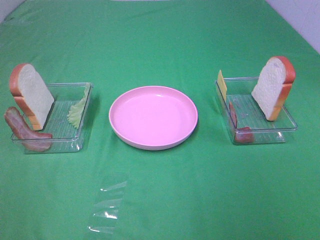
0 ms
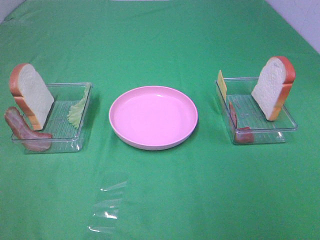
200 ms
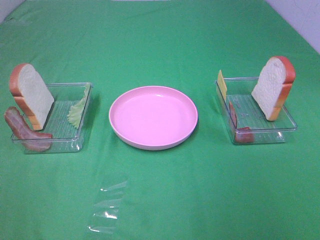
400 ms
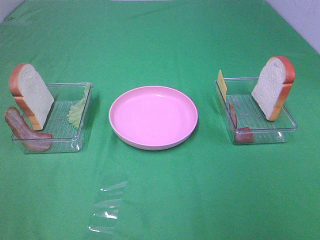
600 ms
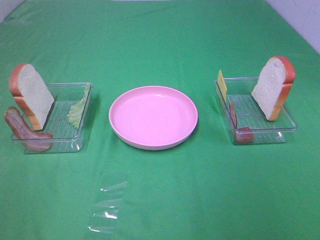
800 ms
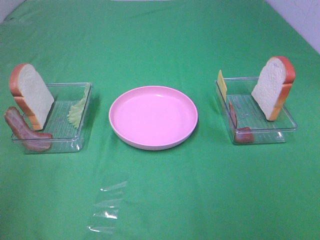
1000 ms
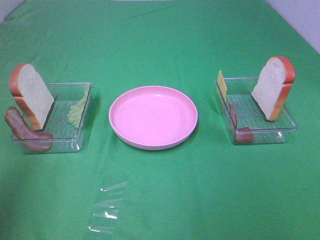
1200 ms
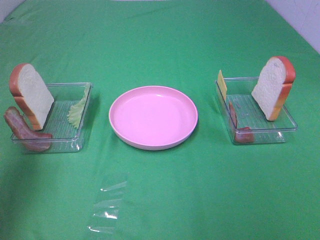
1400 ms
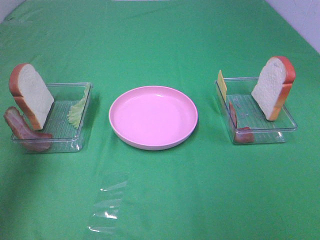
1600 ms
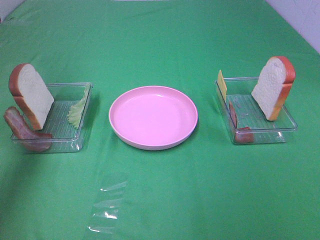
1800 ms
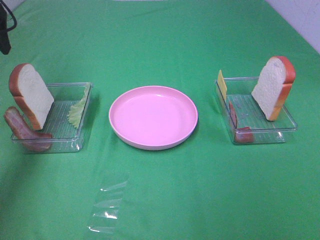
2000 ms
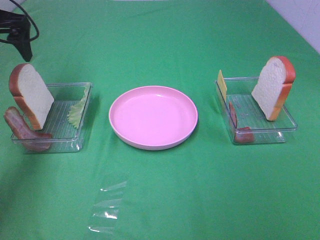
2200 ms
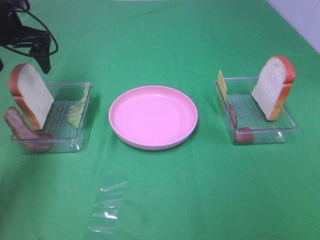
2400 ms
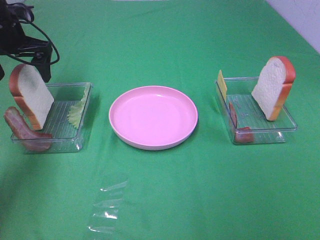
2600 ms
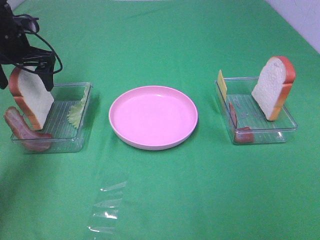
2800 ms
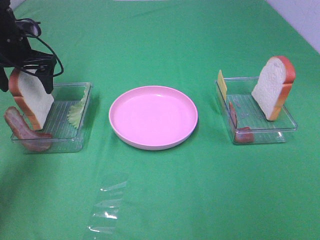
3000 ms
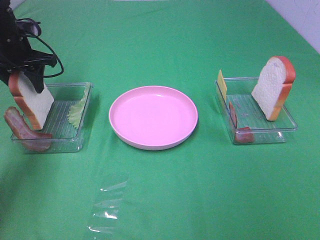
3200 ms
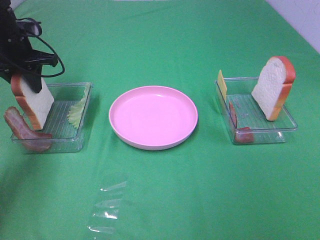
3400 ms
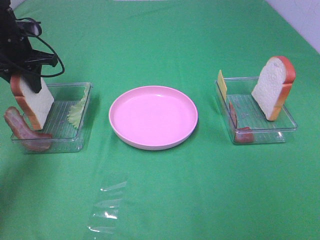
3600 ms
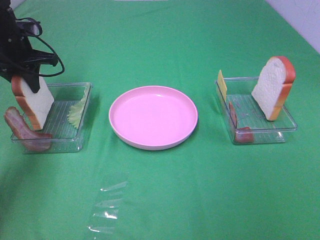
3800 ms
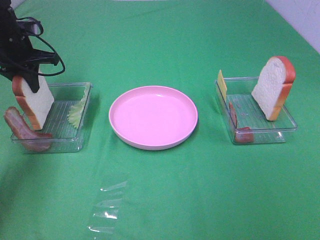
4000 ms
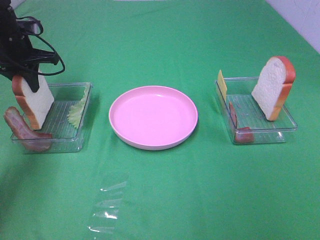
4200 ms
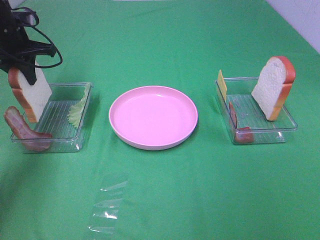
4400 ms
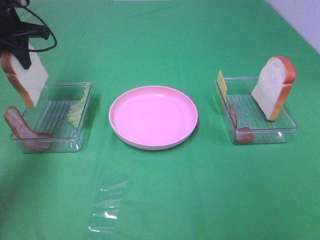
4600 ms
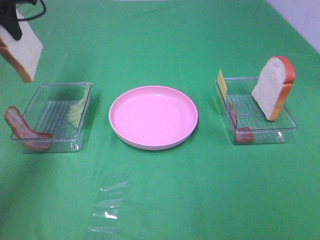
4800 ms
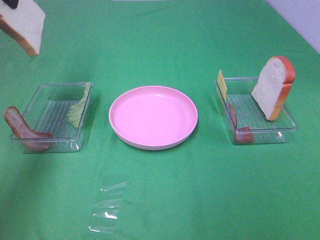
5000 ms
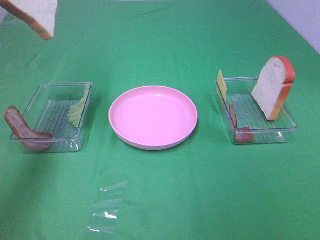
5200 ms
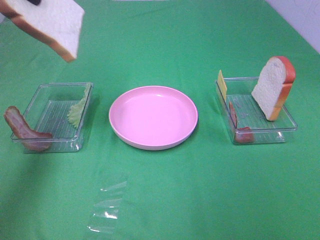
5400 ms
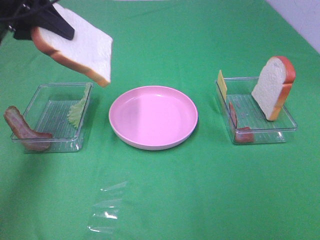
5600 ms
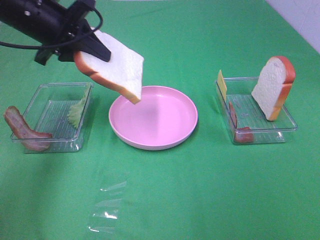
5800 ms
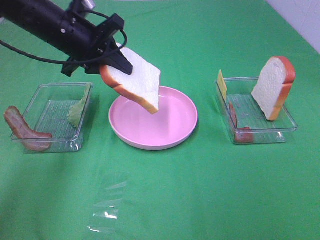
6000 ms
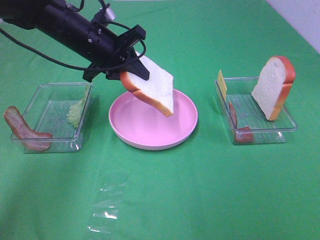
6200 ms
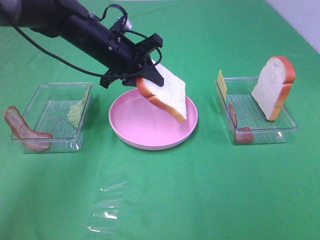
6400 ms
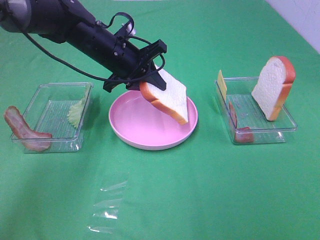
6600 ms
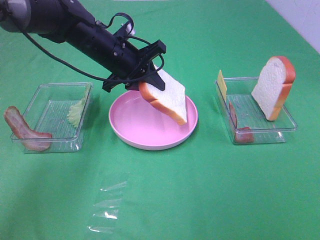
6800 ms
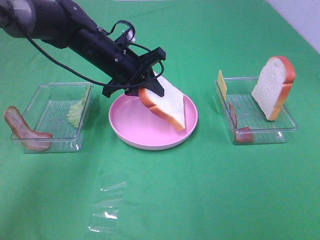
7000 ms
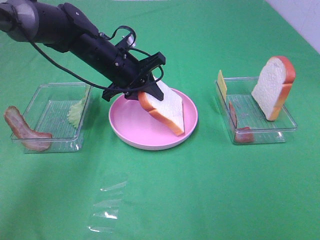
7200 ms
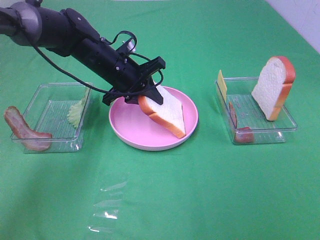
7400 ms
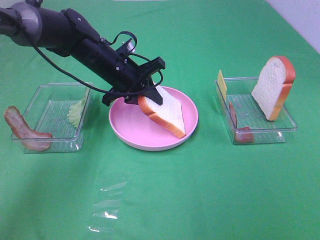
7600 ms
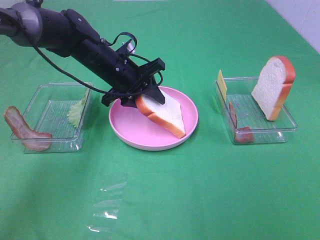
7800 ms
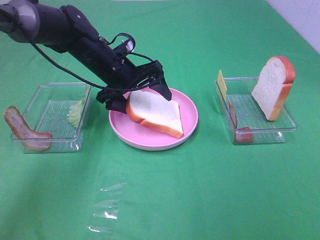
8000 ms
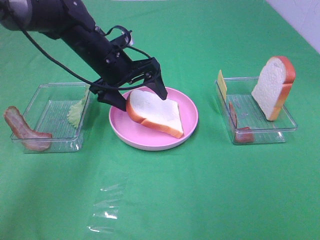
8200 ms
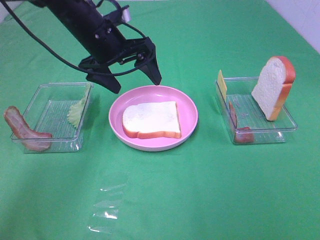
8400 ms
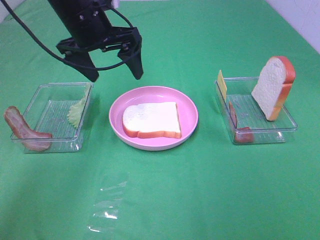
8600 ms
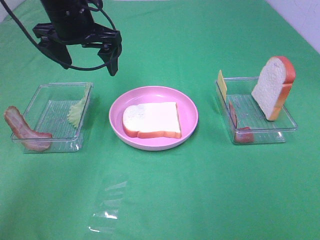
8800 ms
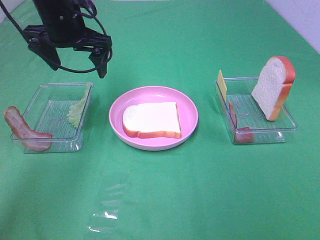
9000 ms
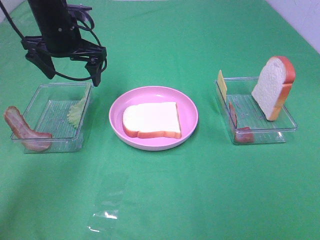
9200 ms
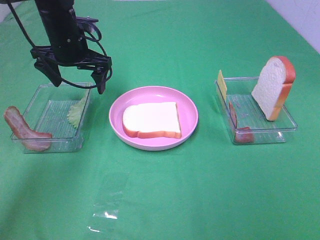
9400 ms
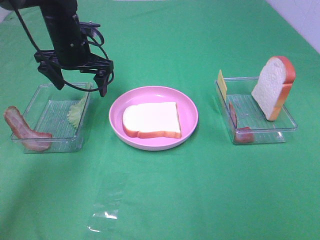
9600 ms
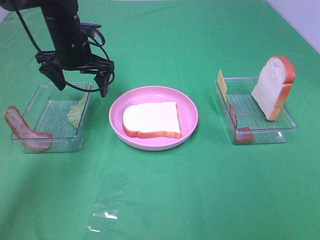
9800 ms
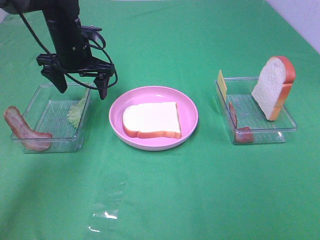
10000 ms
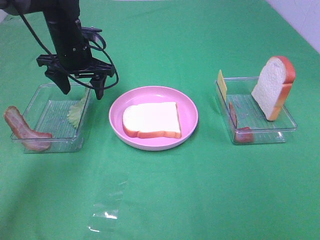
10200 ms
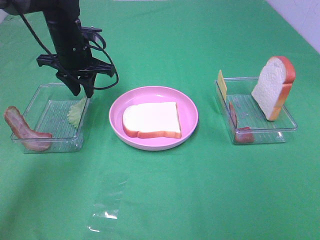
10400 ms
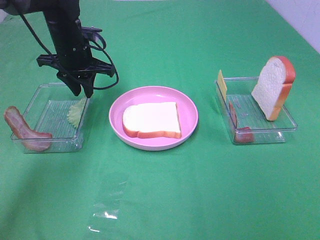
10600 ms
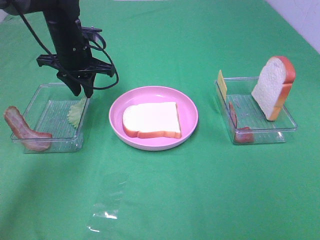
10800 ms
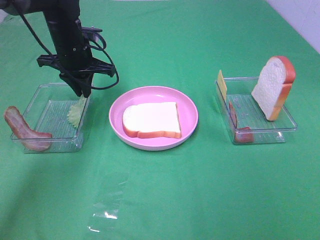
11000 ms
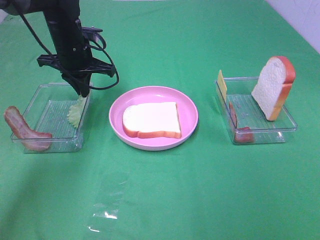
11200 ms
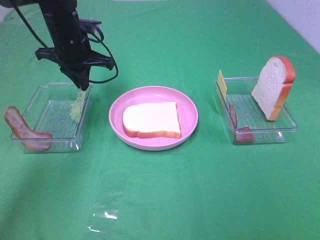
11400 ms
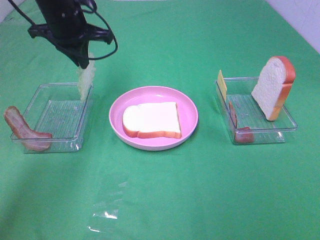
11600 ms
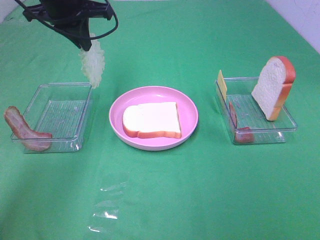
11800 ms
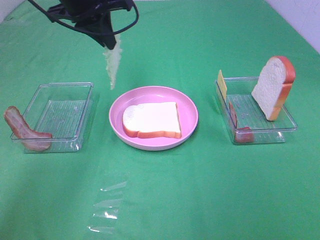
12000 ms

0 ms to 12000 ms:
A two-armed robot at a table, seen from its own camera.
Task of the whole recording: Make sandwiches.
Step, 0 ms to 3800 ms: Left hand:grab the bread slice.
Step, 4000 ms to 8400 ms: Left hand:place the bread slice on the plate.
Step, 8600 ms to 11200 ms: Left hand:grab the lettuce slice.
0 ms to 1600 ms: The left gripper travels forward by some 30 cm.
1600 ms to 3000 ms: The left gripper is displaced forward and downward by approximately 25 cm.
3000 ms to 4400 ms: The left gripper closes its fingers.
4400 ms to 6000 ms: The left gripper travels to the right and backward by some 15 cm, and reaches roughly 20 cm upward, then returns.
6000 ms to 7600 ms: The left gripper moves downward and to the right, roughly 10 cm.
7600 ms to 9000 ms: The left gripper heads upward and to the left, covering some 15 cm, and opens its fingers.
9000 ms to 10400 ms: The left gripper goes approximately 5 cm downward, and closes up.
10400 ms to 12000 ms: The left gripper moves upward, approximately 10 cm.

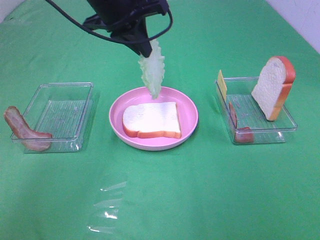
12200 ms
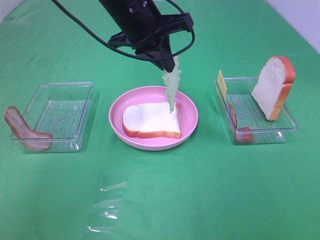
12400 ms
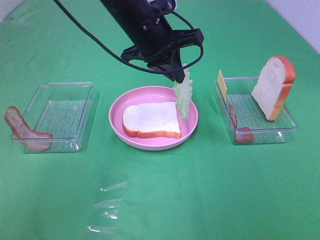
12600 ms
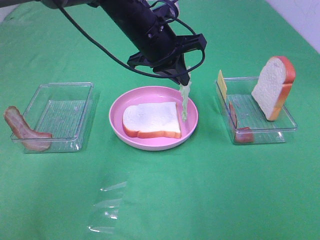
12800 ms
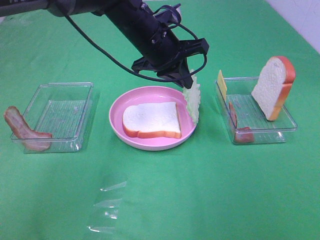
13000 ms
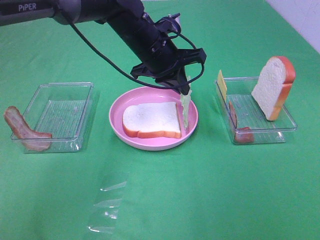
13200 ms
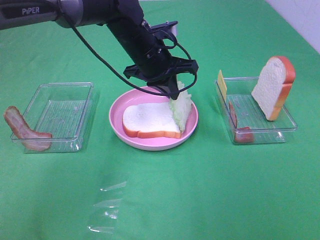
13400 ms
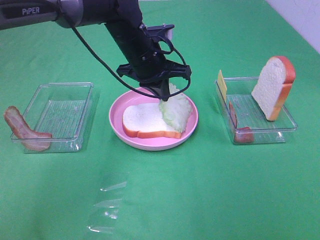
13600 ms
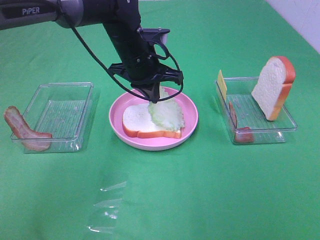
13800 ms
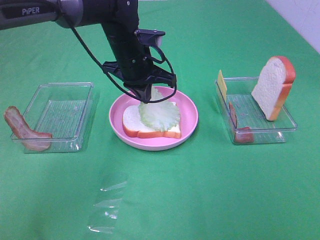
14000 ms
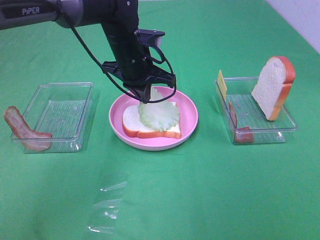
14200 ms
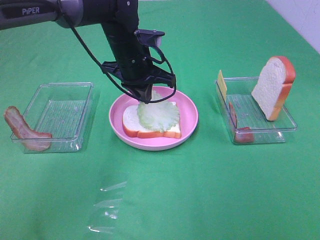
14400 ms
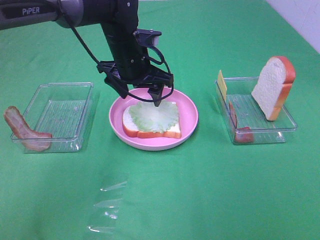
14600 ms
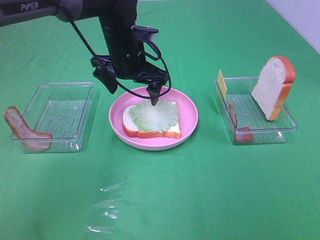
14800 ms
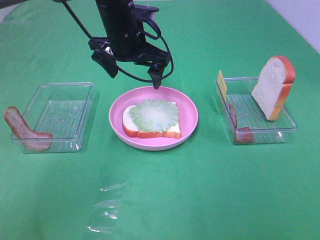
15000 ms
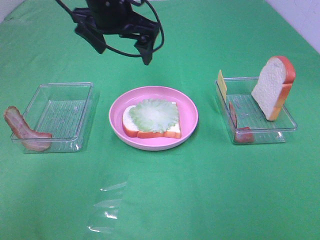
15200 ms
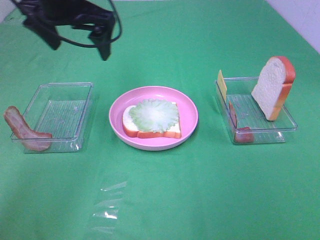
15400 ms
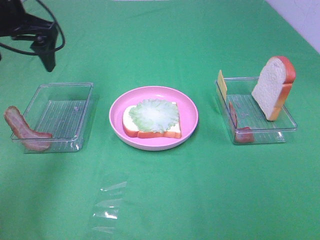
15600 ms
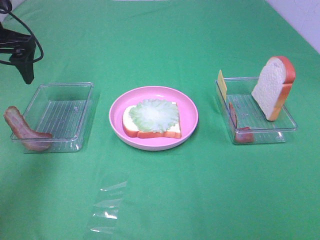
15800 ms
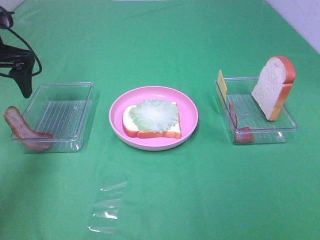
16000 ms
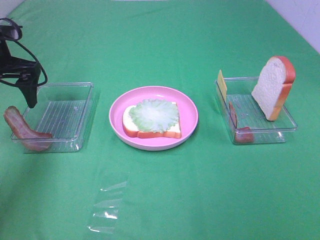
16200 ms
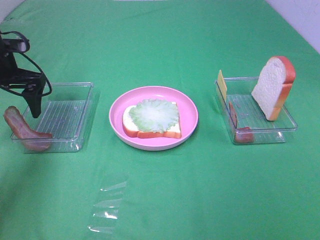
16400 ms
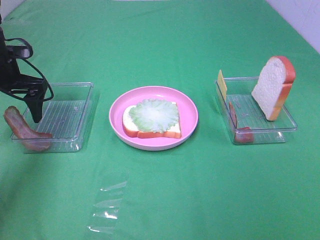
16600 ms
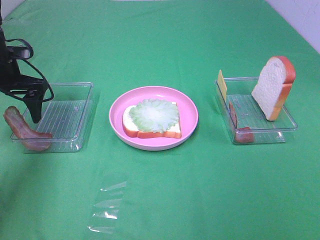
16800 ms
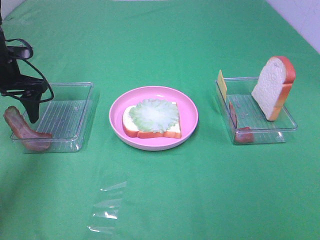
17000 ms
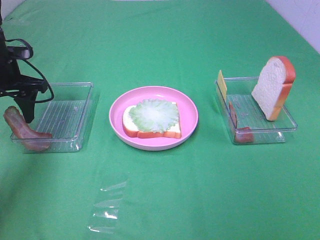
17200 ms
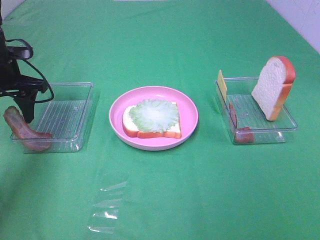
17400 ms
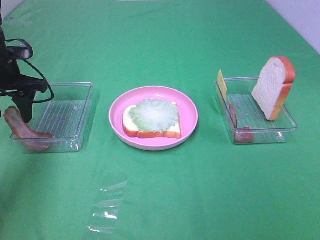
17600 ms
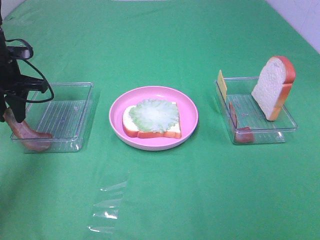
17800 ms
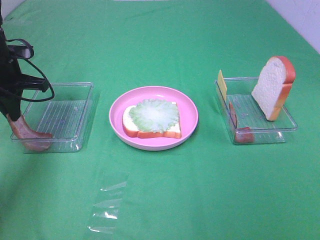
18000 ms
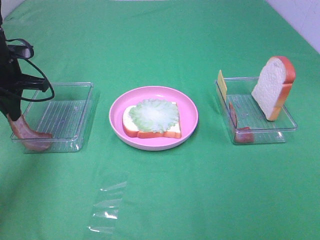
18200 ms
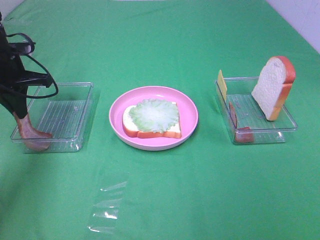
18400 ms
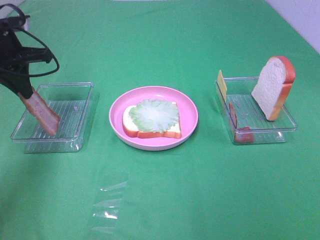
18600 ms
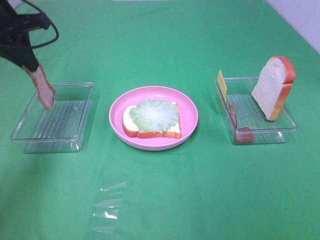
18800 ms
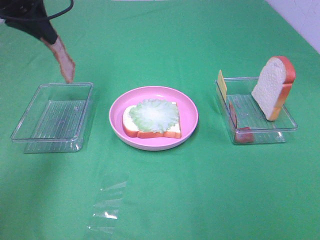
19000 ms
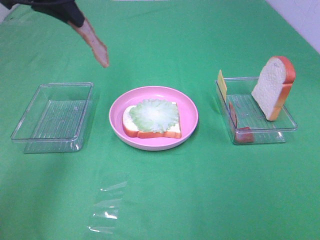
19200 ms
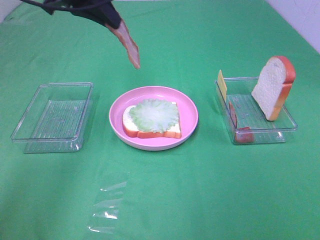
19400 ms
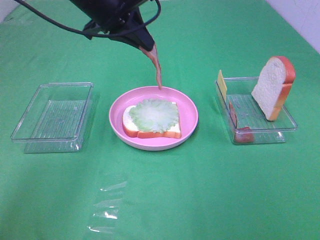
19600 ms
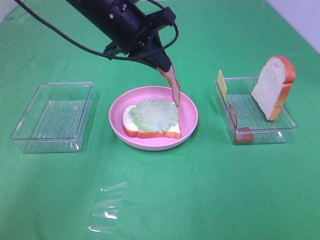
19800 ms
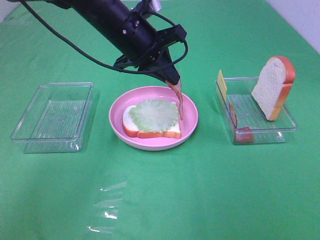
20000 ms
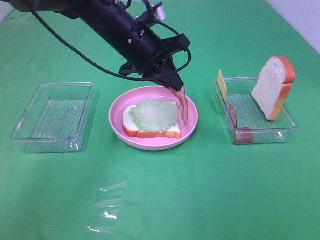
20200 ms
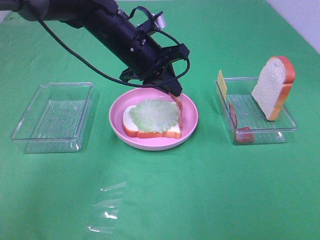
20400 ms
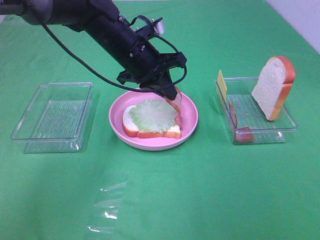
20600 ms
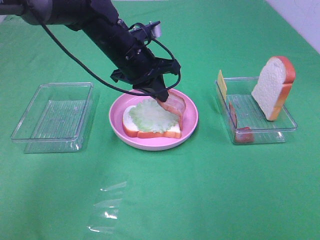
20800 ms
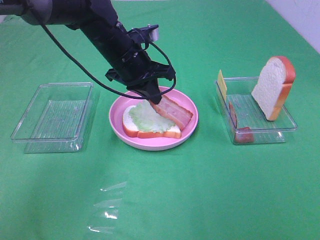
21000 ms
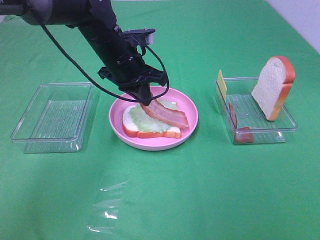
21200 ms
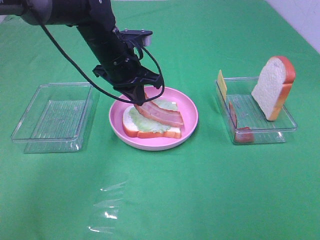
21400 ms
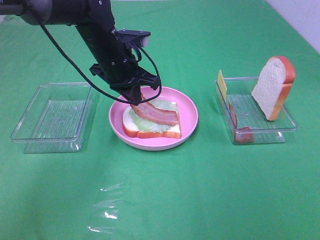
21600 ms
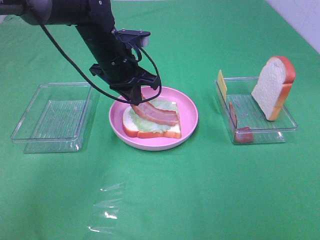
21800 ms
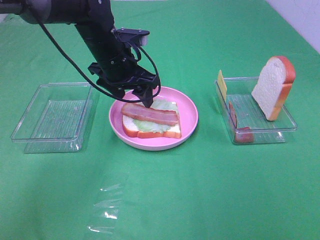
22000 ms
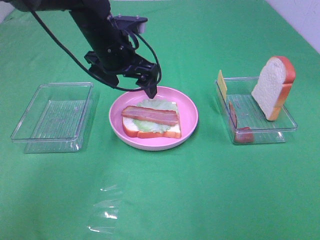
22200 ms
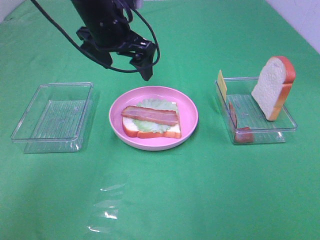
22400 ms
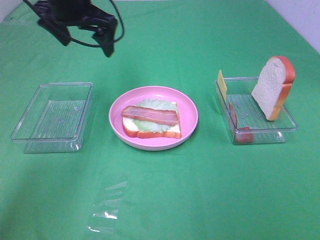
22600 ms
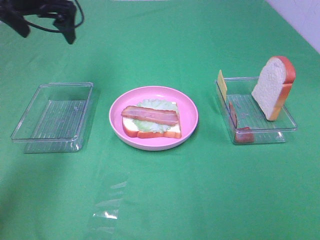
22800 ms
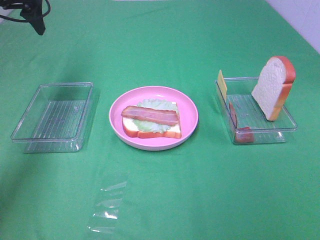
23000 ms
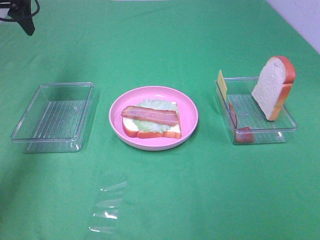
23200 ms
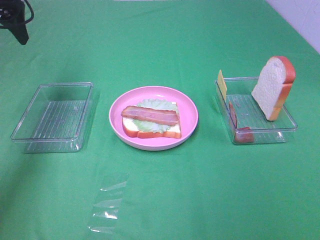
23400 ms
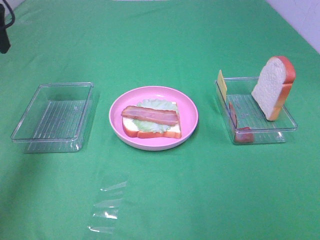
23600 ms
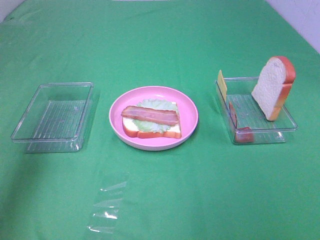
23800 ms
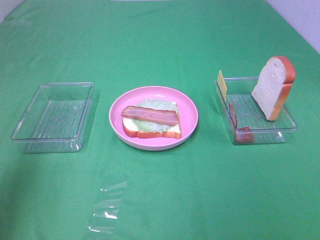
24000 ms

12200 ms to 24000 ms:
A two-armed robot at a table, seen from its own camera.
Task of the whole recording: Make sandwiches.
Step, 12200 ms to 14600 ms: Left hand:place the lettuce slice on the bread slice.
Step, 14800 ms to 18200 ms: Left hand:grab the bacon.
Step, 18400 ms to 22000 ms: Left hand:place bacon on lettuce slice.
12200 ms to 13600 ms: The left gripper moves downward, approximately 10 cm.
13600 ms to 15200 ms: The left gripper shifts about 15 cm upward and to the left, and opens.
15200 ms to 16600 ms: The left gripper heads to the left and downward, covering about 20 cm.
16600 ms to 18200 ms: The left gripper closes.
18200 ms to 19600 ms: The left gripper is displaced to the right and upward by some 20 cm.
19600 ms to 21000 ms: The left gripper shifts about 10 cm downward.
21000 ms to 22600 ms: The left gripper shifts some 15 cm upward and to the left, and opens up.
22600 ms to 24000 ms: The left gripper travels backward and to the left by about 30 cm.
